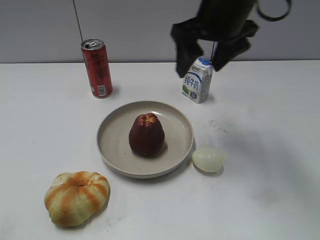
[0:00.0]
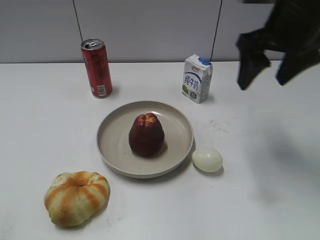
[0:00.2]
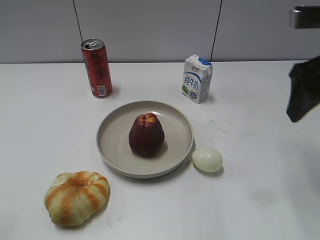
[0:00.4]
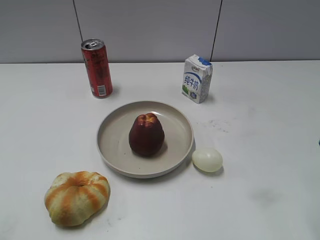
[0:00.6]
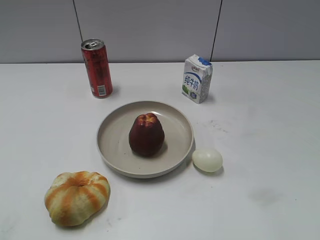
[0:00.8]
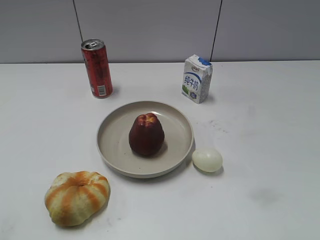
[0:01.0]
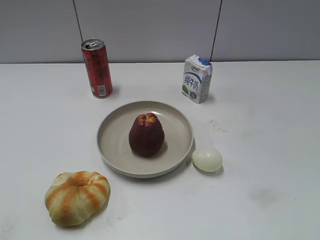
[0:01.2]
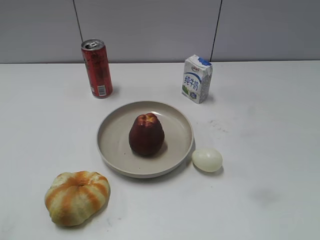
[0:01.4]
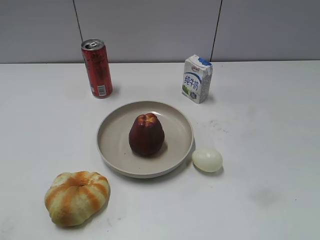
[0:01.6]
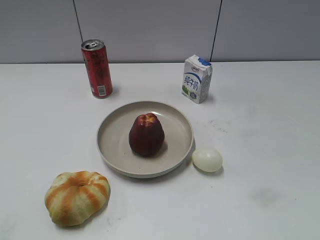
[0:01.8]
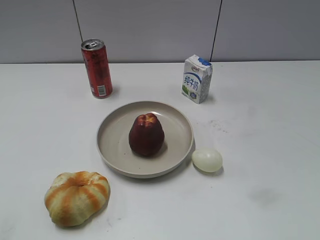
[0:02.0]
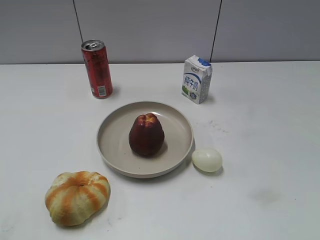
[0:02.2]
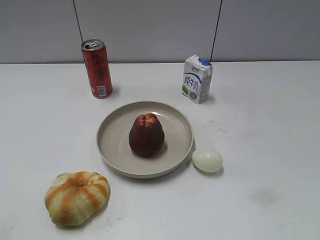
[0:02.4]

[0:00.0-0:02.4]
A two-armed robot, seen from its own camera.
0:00.0 to 0:01.2: The right gripper shifts roughly 35 cm backward and to the right, and closes.

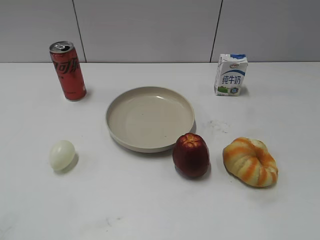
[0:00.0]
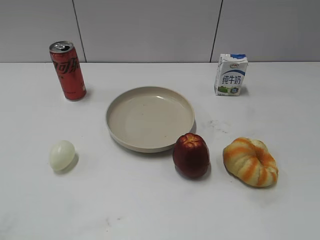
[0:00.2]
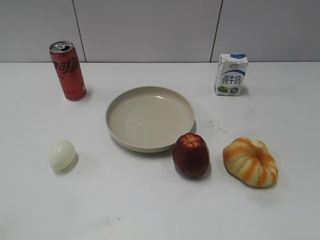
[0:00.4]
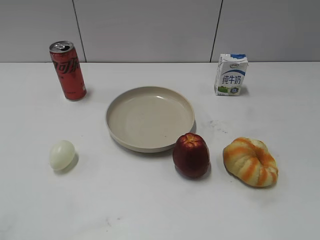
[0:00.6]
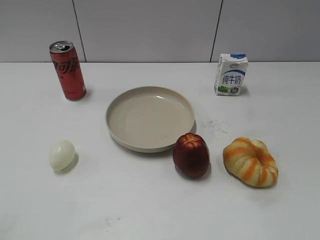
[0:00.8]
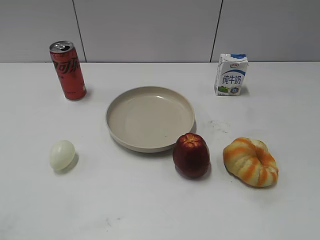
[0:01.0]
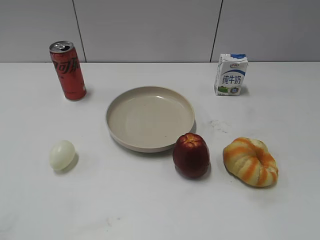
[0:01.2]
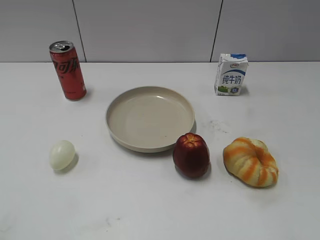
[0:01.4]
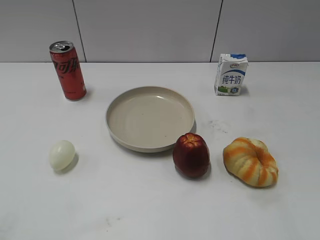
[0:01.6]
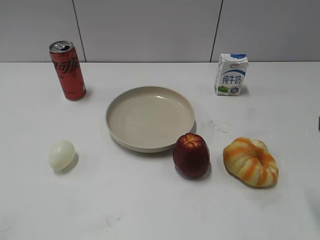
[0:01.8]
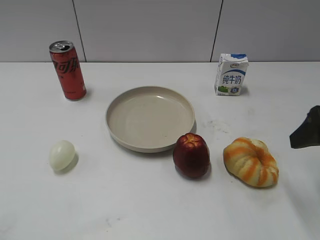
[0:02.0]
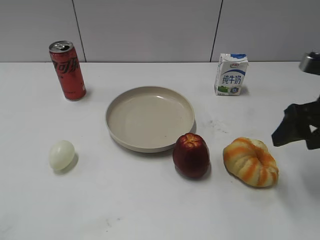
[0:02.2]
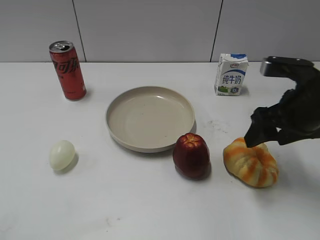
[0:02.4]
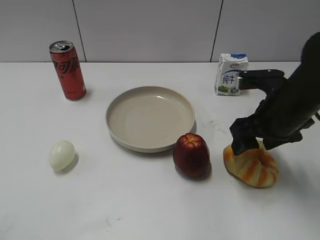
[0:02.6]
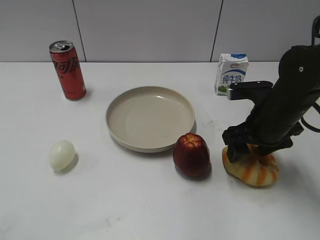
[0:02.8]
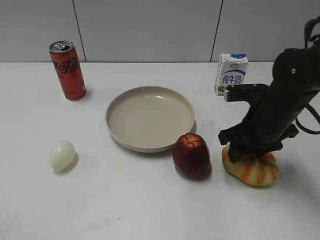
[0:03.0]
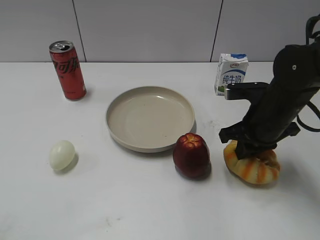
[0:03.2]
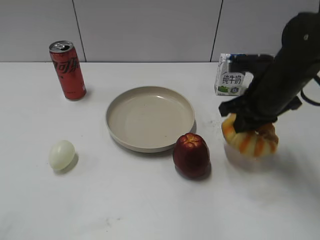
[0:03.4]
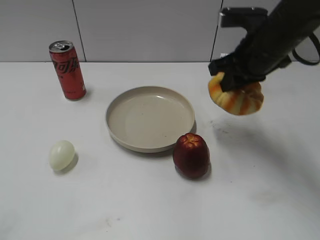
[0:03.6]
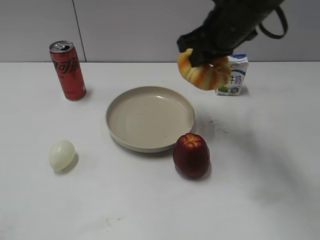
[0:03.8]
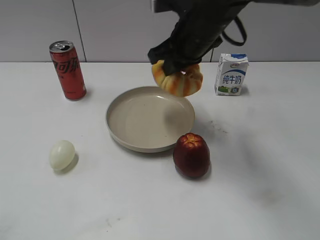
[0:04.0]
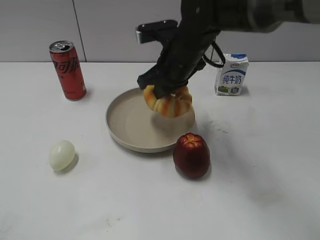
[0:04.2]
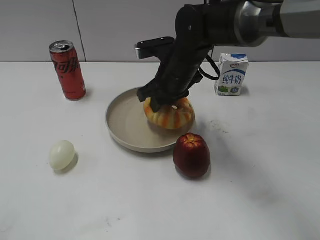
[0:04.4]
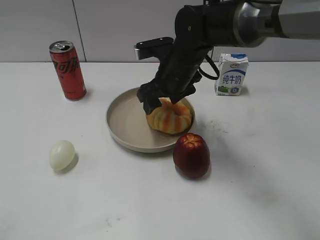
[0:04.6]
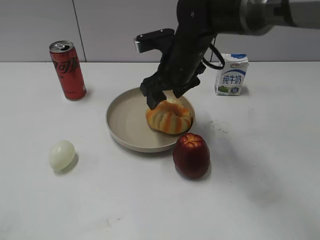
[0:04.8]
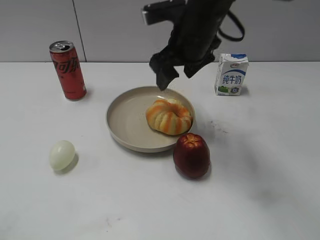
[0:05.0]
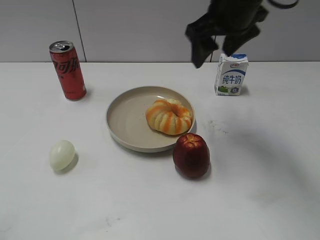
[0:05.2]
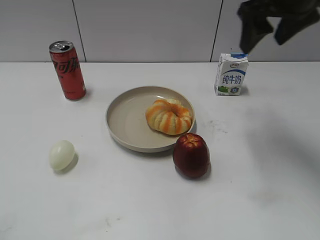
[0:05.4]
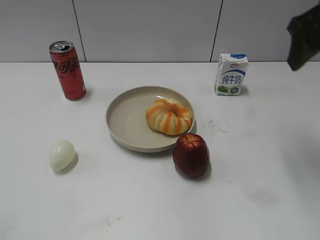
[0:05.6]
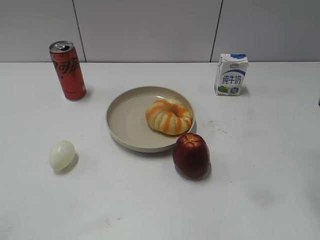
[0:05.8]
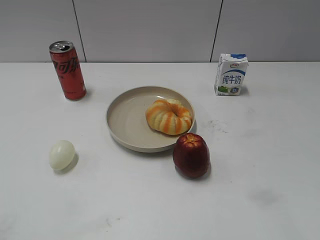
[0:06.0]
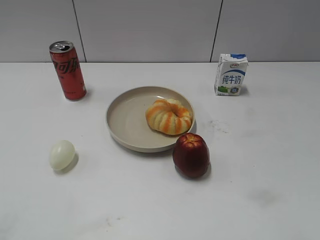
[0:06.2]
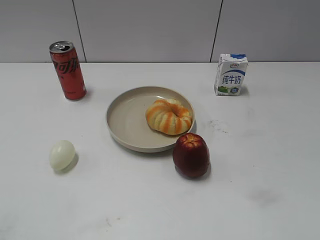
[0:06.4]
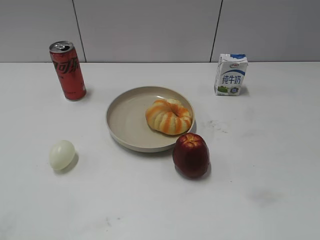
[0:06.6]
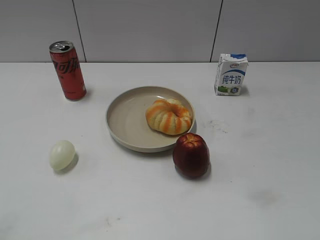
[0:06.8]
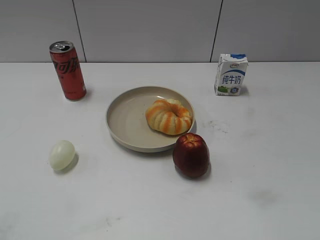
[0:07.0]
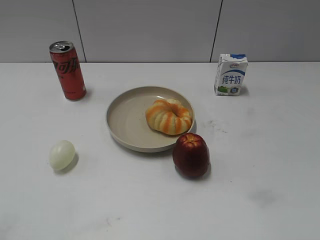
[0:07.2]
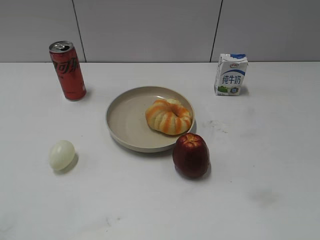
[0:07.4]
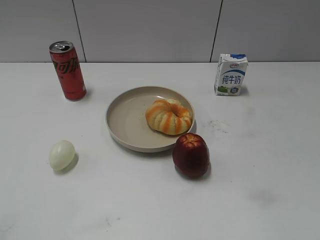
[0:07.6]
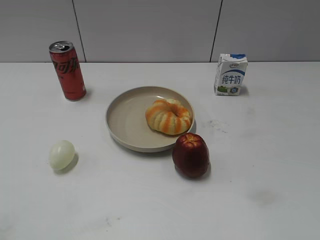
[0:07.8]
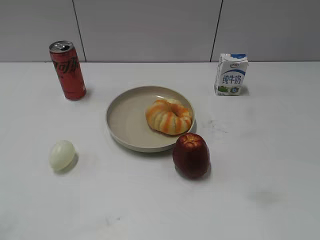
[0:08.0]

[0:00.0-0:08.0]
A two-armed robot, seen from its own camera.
Step, 0:01.2 to 0:03.0: Grasp the round bread with right gripper.
Step, 0:03.4 to 0:05.0: Place the round bread on the plate with right gripper.
0:01.6 to 0:03.2: The right gripper is displaced forward, downward and to the left by some 25 cm, and closes up.
0:03.2 to 0:04.8: The right gripper is displaced to the left and forward by about 15 cm, and opens its fingers.
0:04.8 to 0:06.4: The right gripper heads backward and to the right, covering approximately 40 cm.
